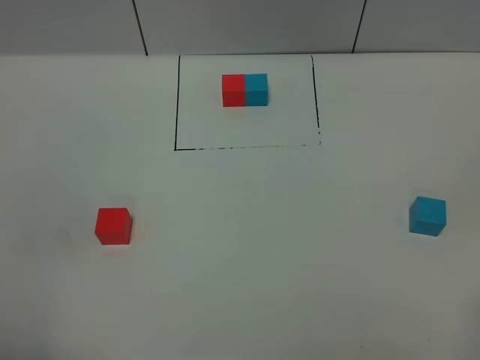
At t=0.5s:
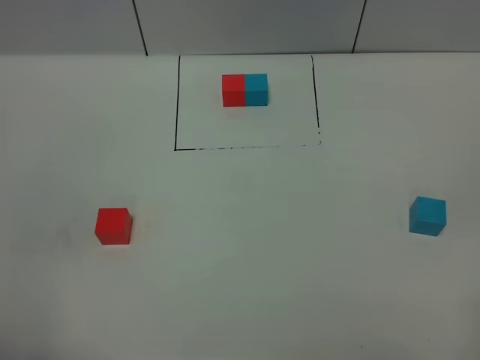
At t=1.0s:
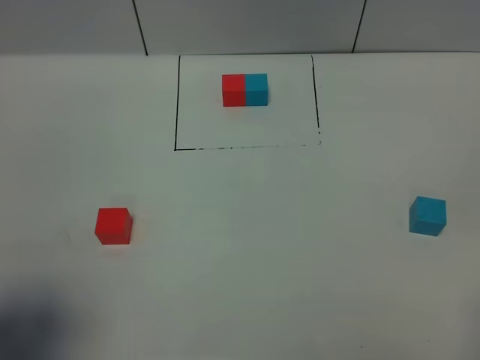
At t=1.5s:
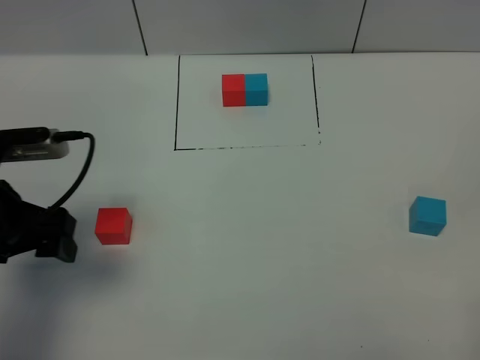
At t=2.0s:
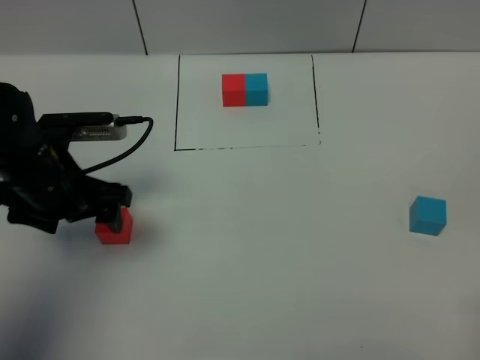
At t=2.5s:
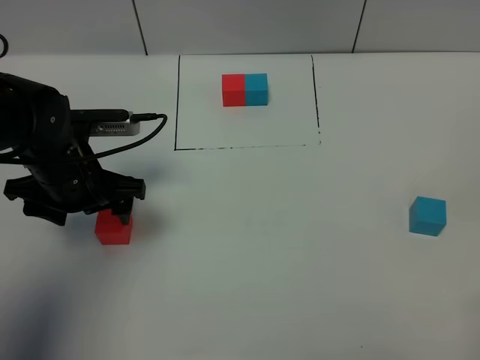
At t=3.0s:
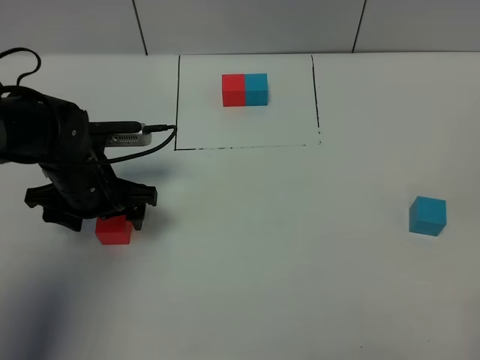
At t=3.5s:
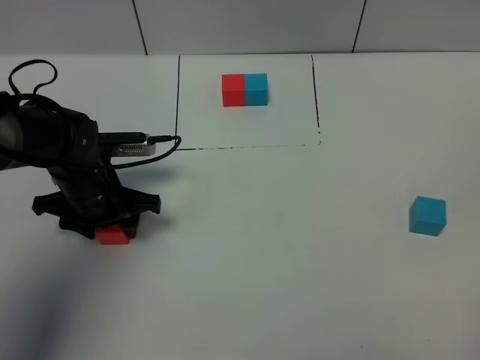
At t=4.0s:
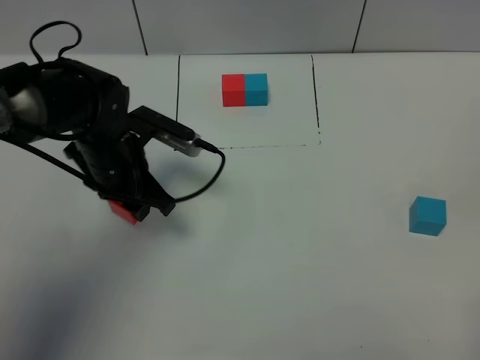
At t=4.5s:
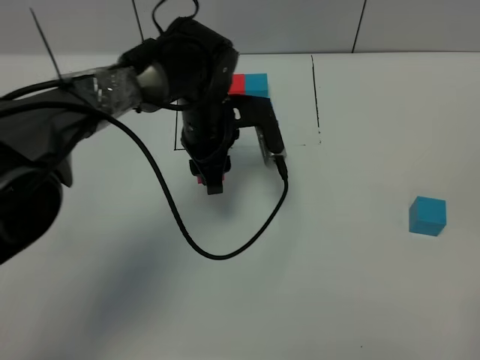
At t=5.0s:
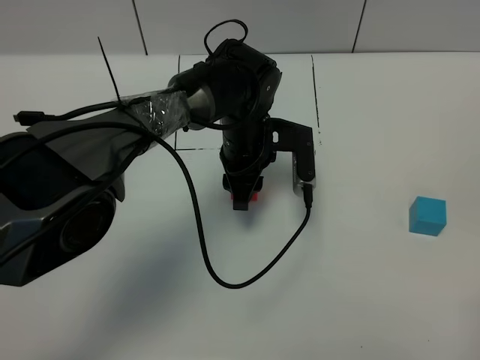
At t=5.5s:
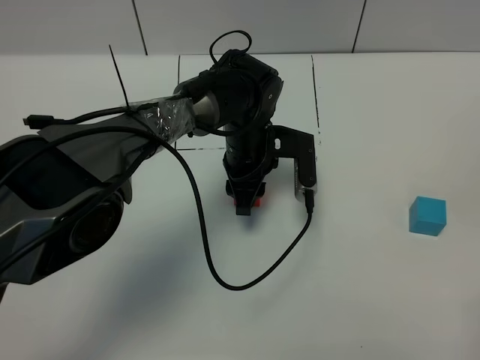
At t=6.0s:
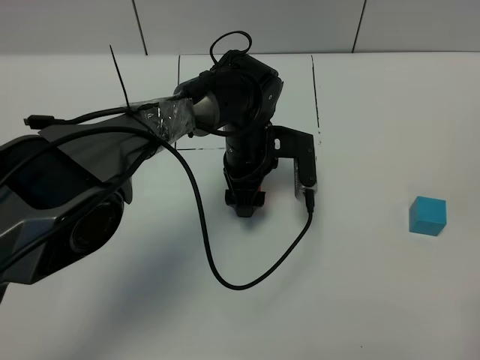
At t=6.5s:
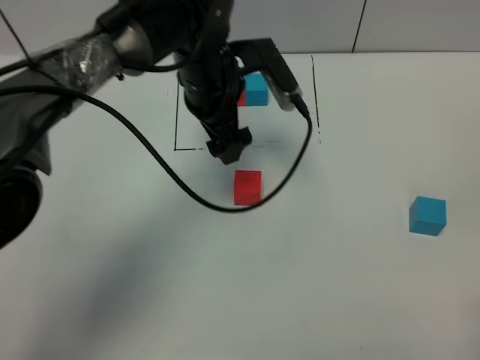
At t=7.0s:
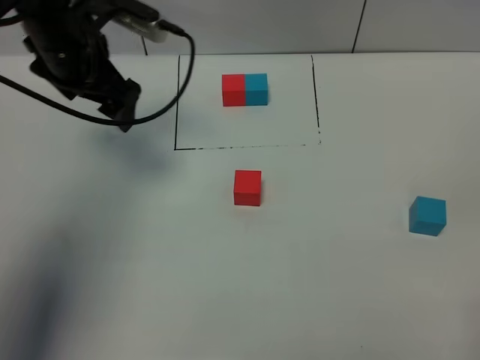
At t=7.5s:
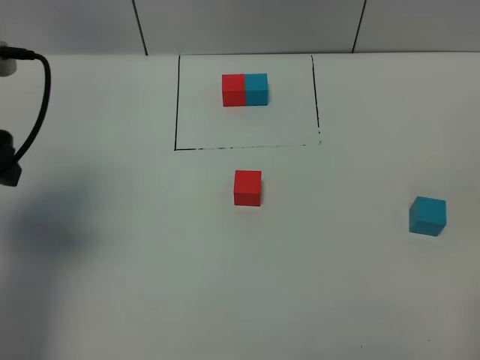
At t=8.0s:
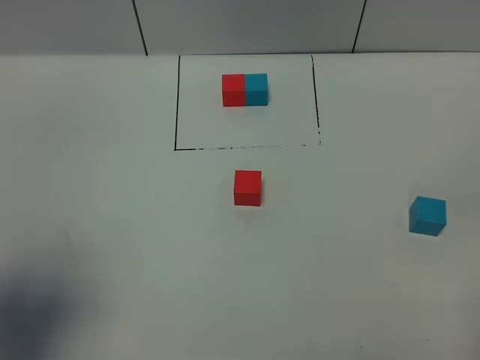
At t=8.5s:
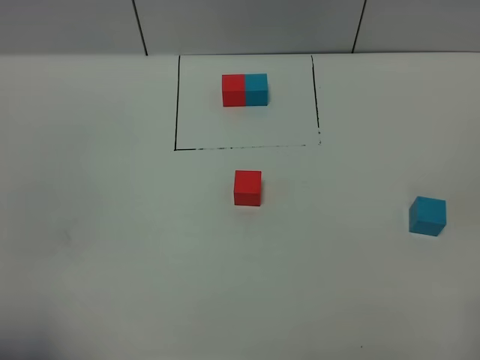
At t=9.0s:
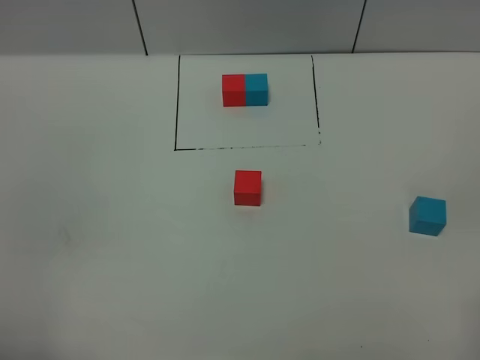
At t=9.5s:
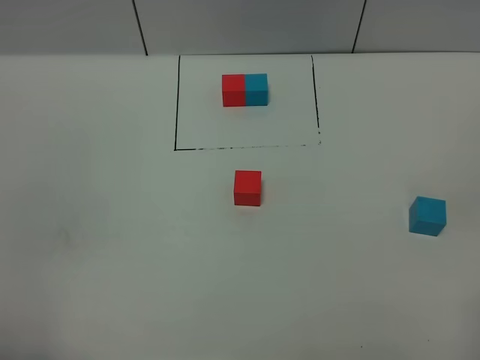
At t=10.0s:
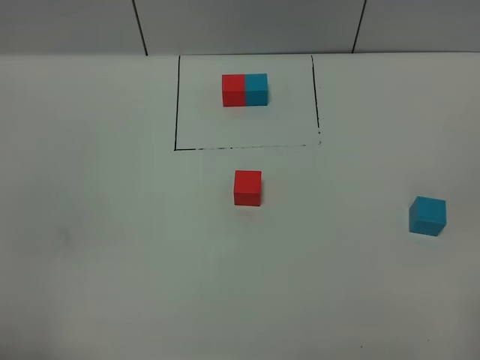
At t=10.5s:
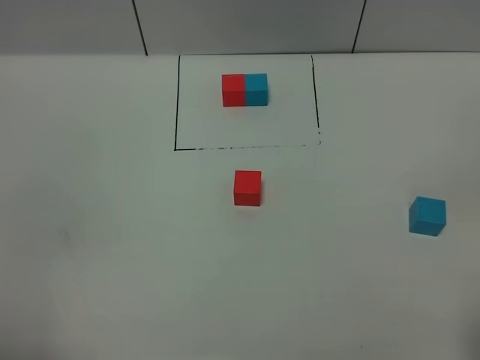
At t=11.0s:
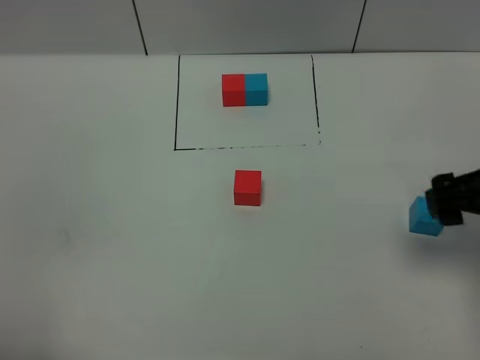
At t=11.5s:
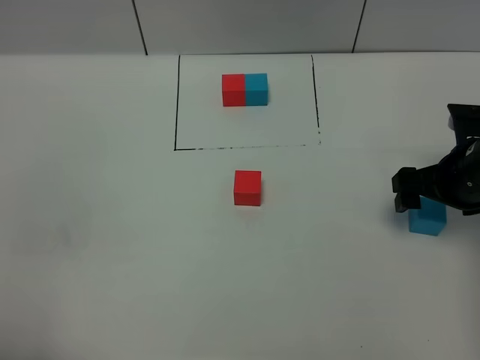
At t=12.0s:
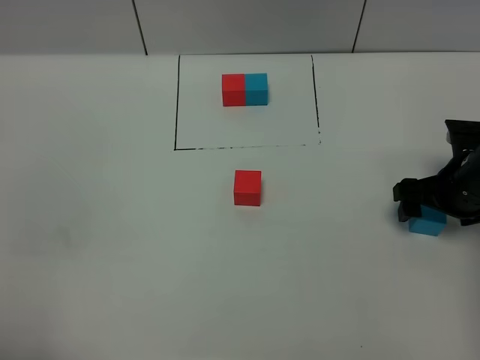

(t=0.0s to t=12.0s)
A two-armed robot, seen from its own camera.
Task of the whole recording: According to the building block template in front, assemble the scattered blocks together.
Step, t=1.5s - t=6.0s: Put the red cube in the center of the table.
t=0.0s - t=2.0s: The left gripper is displaced forward by roughly 30 cm.
t=2.0s - t=4.0s: The left gripper is displaced to the right and forward by about 10 cm, and closes its fingers.
t=4.0s - t=6.0s: The left gripper goes about 15 cm to the right, and opens its fingers.
t=6.0s - t=8.0s: The left gripper shifts approximately 50 cm to the left, backward and upward.
t=8.0s - t=10.0s: The left gripper goes approximately 10 cm backward.
t=10.0s - t=12.0s: The right gripper is displaced forward and downward by approximately 35 cm.

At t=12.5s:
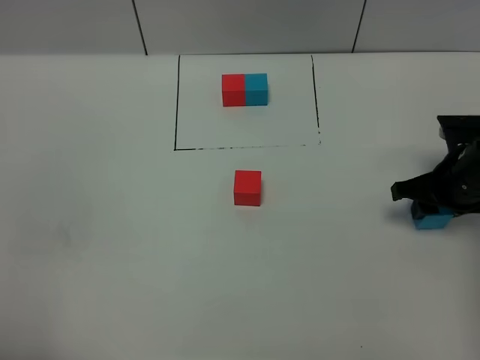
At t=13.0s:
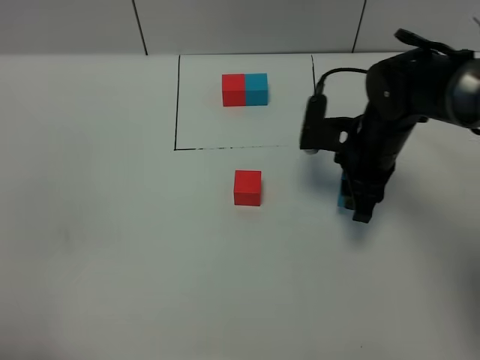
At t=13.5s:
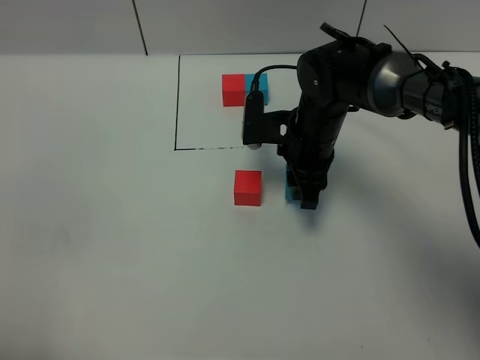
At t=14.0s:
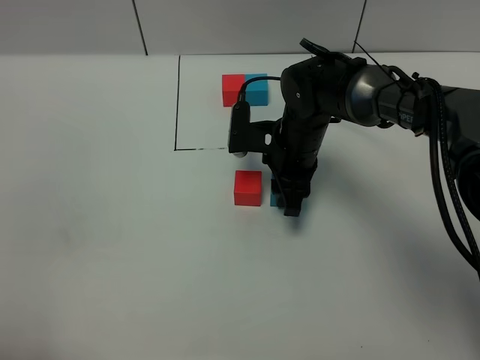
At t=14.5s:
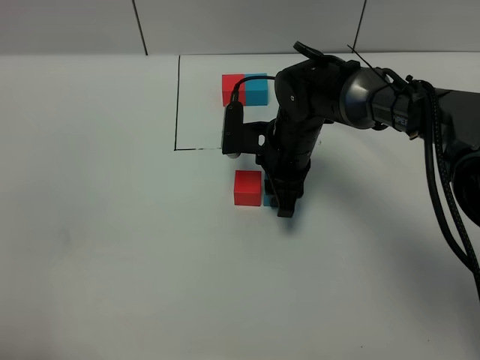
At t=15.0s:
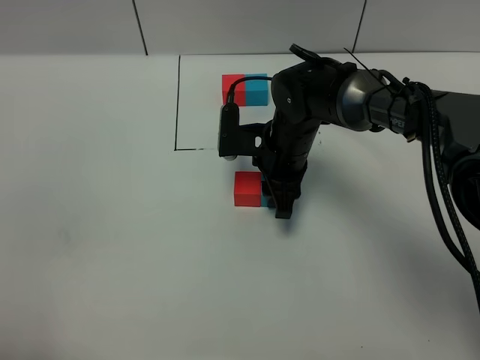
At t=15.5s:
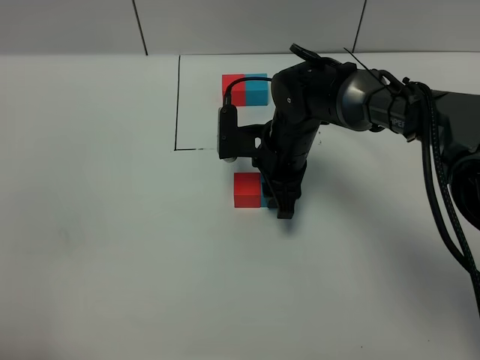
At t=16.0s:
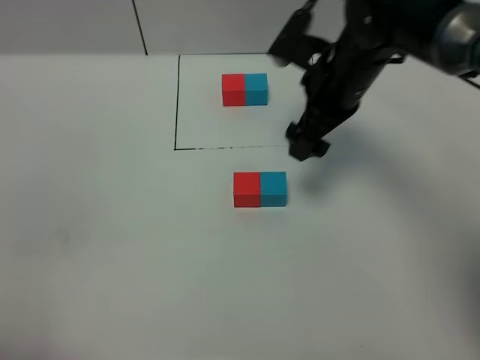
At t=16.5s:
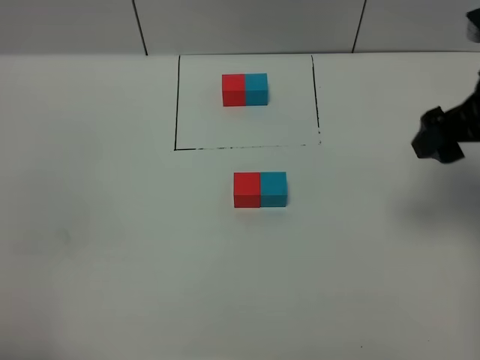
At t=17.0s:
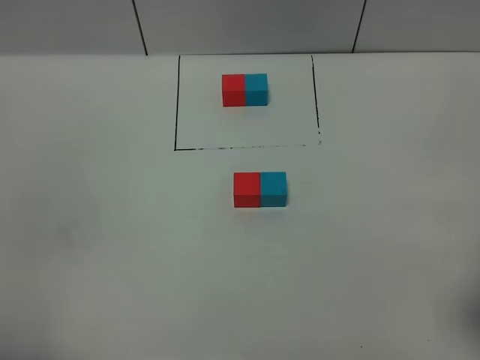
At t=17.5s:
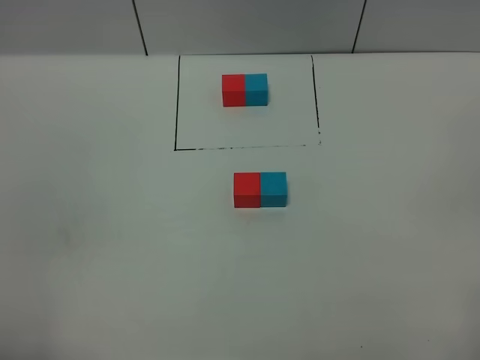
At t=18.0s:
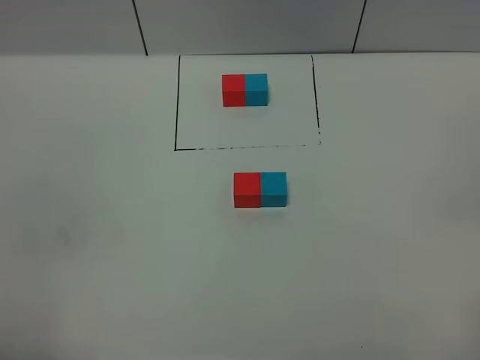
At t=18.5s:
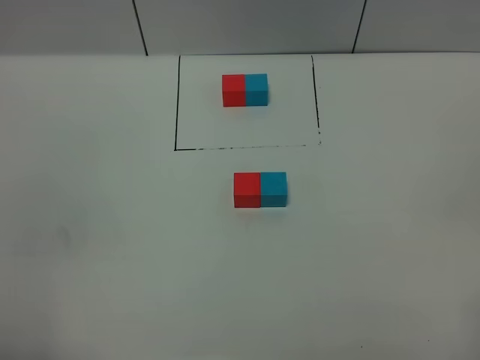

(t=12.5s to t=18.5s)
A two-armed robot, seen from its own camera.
Task of the whole recording: According to the building block template in front, assemble the scattered blocks together.
Step, t=12.5s - t=15.5s: Put the blue cube on the right of the red cube.
t=12.5s - t=14.5s: The right gripper goes some 20 cm to the left and forward.
t=14.5s - t=16.5s: The right gripper goes roughly 30 cm to the right, upward and backward, and opens.
t=16.5s - t=18.5s: The right gripper goes roughly 25 cm backward.

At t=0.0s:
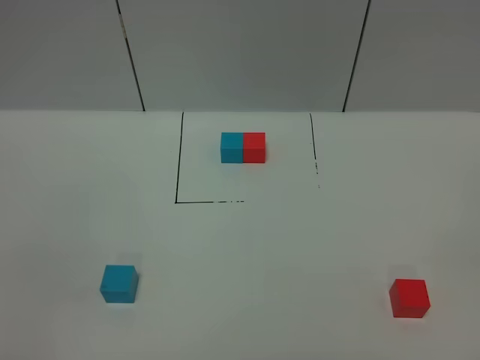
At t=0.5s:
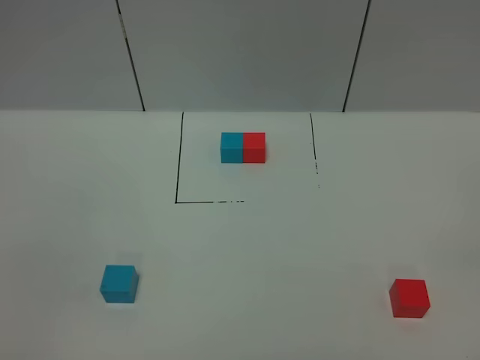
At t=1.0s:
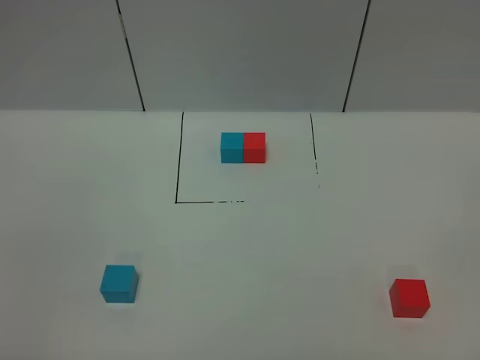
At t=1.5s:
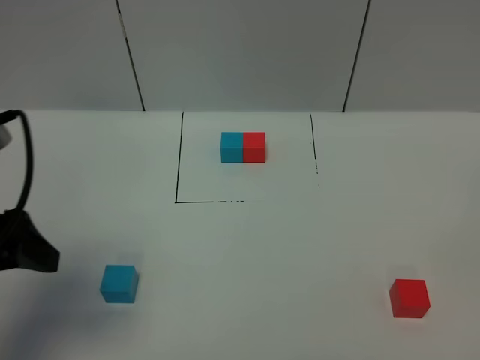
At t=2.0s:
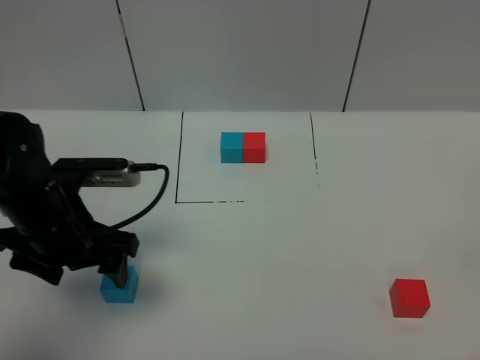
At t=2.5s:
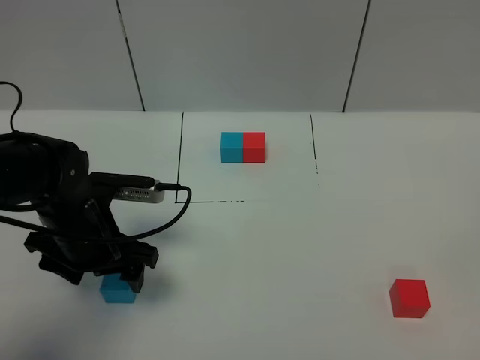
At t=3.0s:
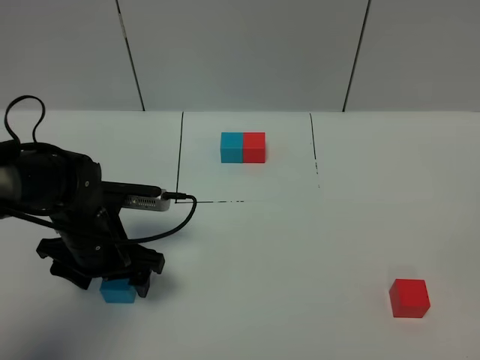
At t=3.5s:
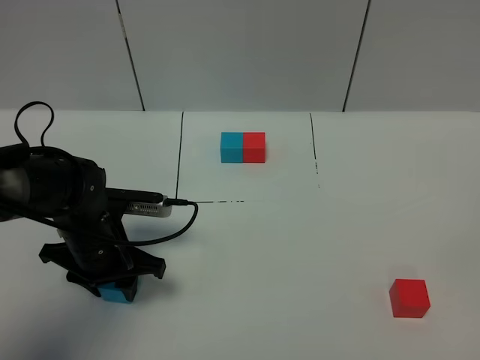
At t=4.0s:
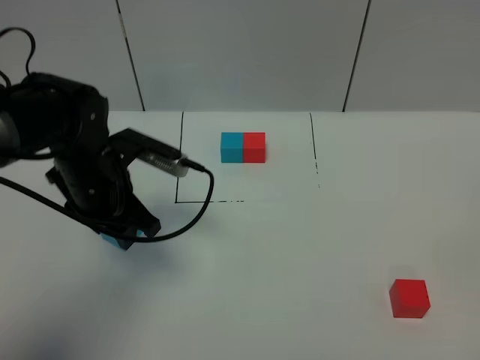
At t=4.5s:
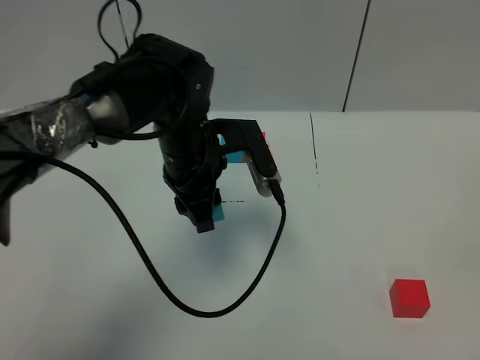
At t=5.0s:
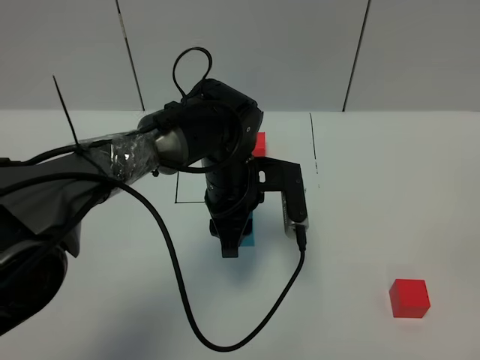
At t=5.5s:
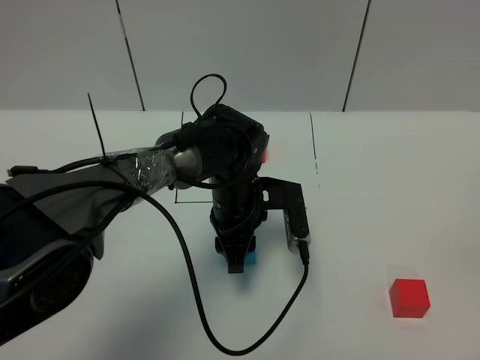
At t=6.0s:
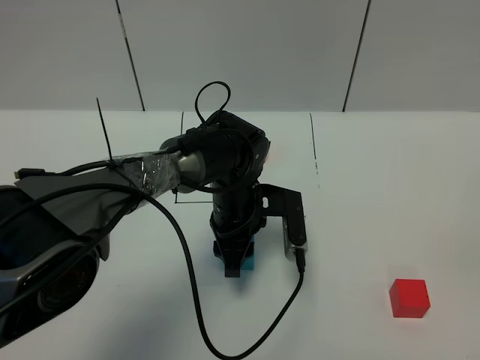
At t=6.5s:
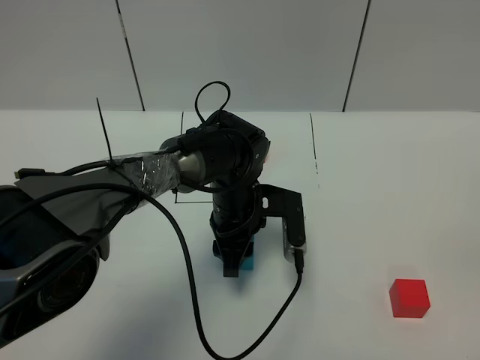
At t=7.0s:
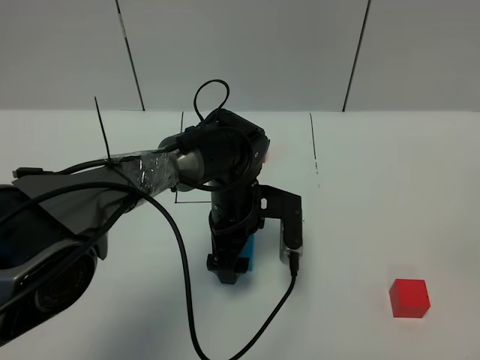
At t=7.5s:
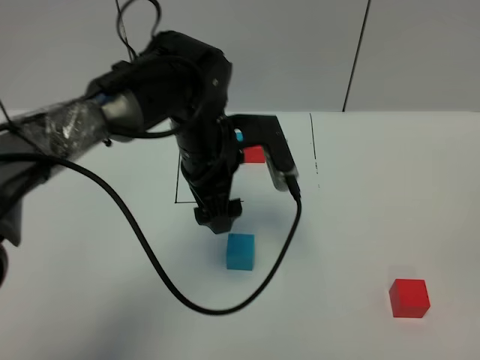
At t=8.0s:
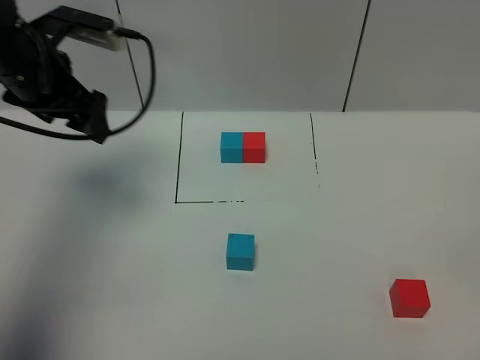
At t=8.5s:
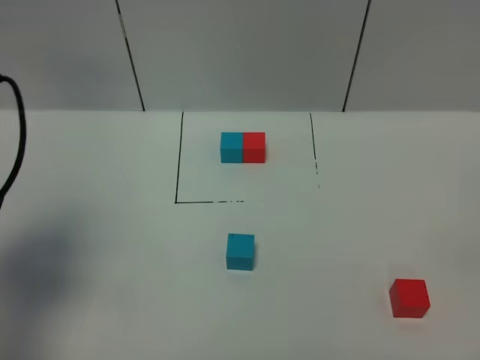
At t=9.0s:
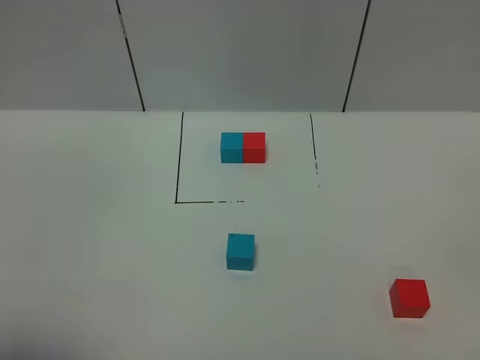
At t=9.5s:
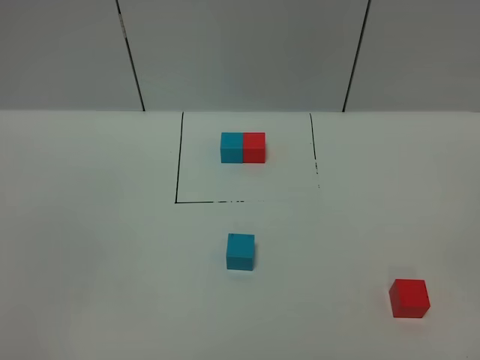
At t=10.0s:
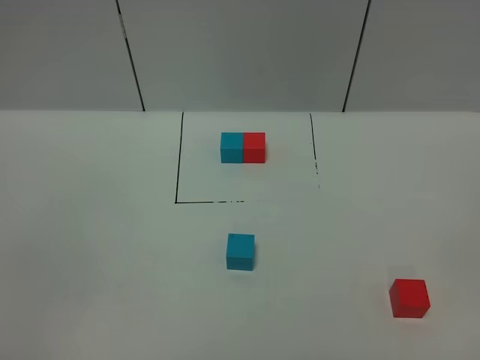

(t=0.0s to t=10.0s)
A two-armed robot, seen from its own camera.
Task of the whole recording: According to the building block template in front, assemble the scattered blocks together.
Step, t=1.5s - t=7.0s: Put the blue cube in the center of the table.
t=0.0s - t=2.0s: The left gripper heads forward, covering some 30 cm.
t=2.0s - t=4.0s: The left gripper travels forward by about 5 cm, travels downward and back again, about 10 cm each way, and closes up.
t=4.0s - t=6.0s: The left gripper heads to the right and downward, covering roughly 20 cm.
t=6.0s - t=8.0s: The left gripper moves to the left and upward, some 30 cm, and opens.
t=8.0s - t=10.0s: The left gripper heads backward, covering roughly 40 cm.
